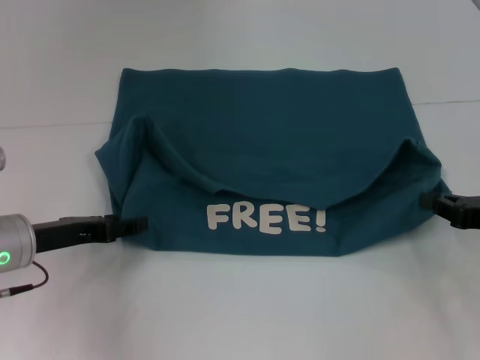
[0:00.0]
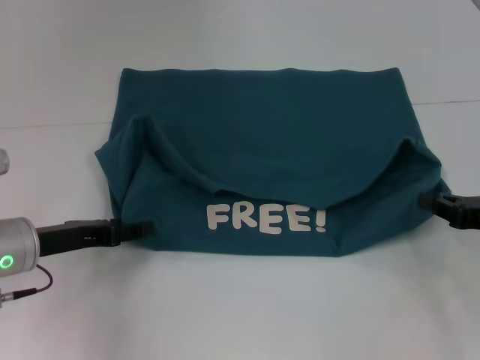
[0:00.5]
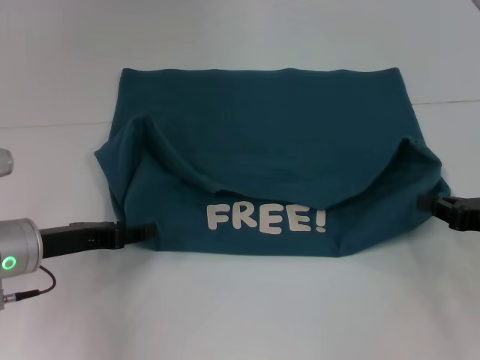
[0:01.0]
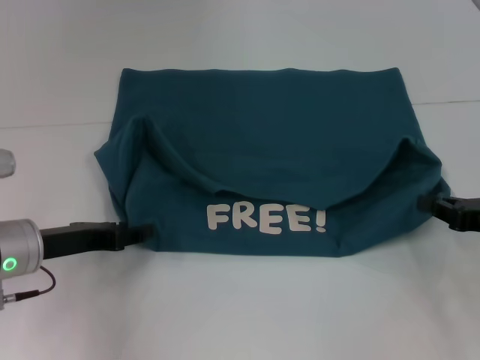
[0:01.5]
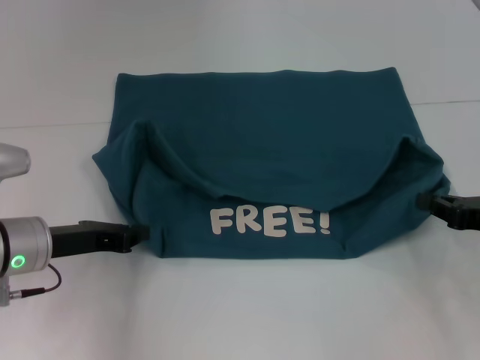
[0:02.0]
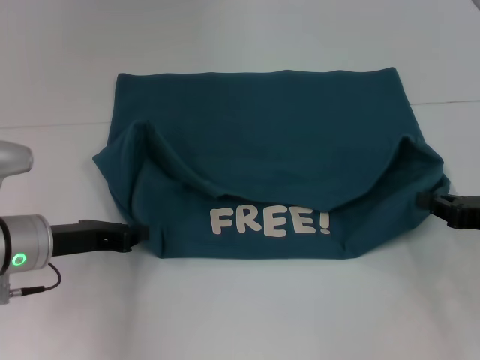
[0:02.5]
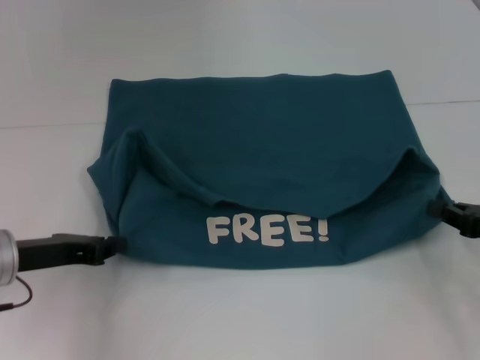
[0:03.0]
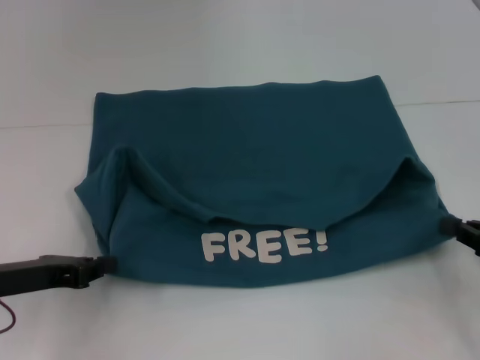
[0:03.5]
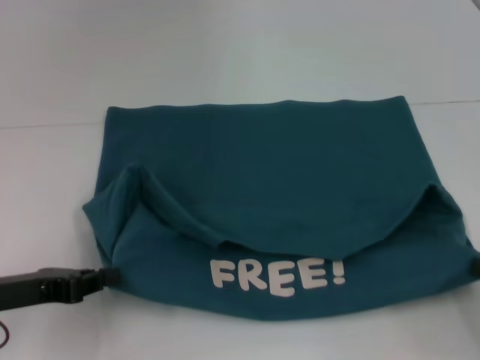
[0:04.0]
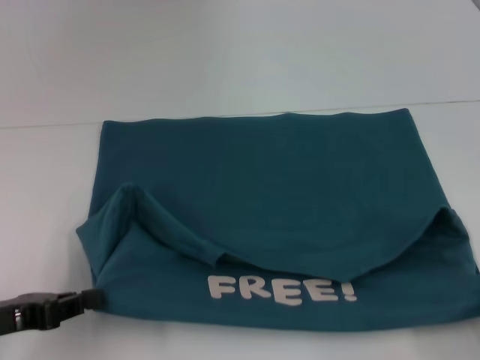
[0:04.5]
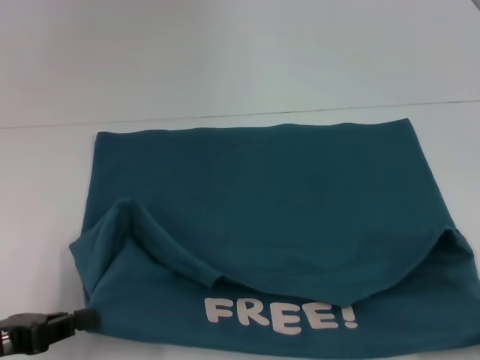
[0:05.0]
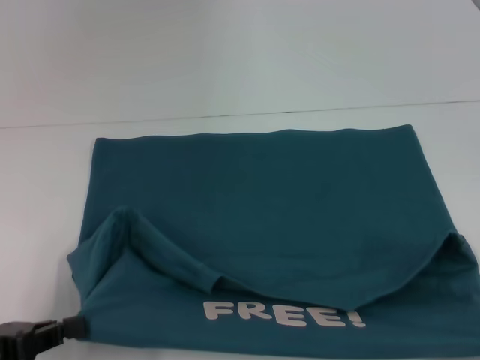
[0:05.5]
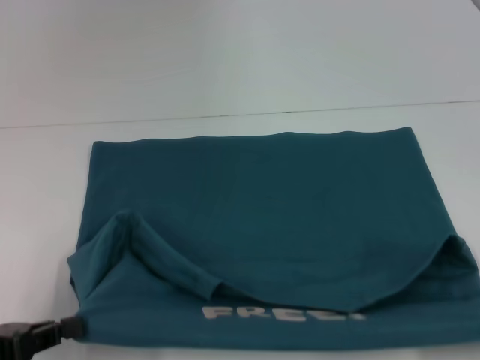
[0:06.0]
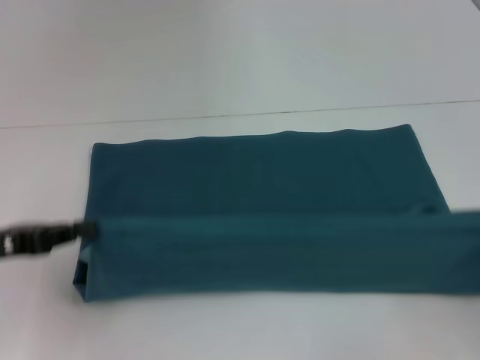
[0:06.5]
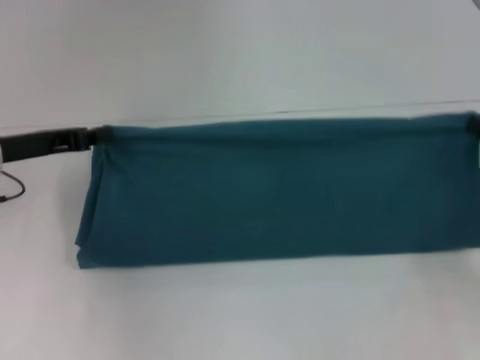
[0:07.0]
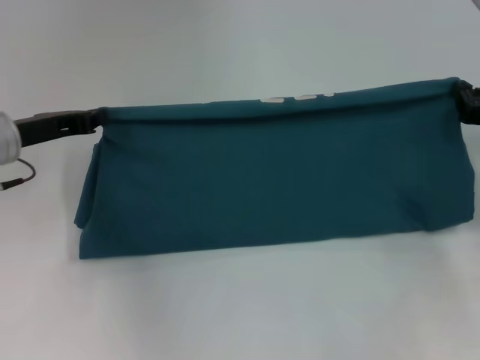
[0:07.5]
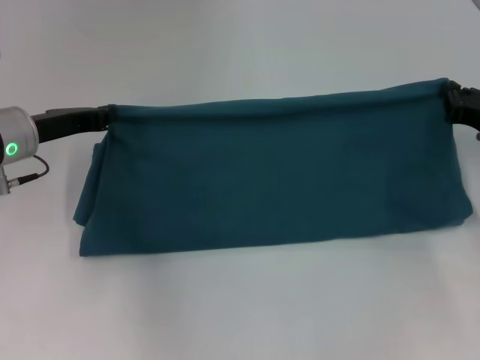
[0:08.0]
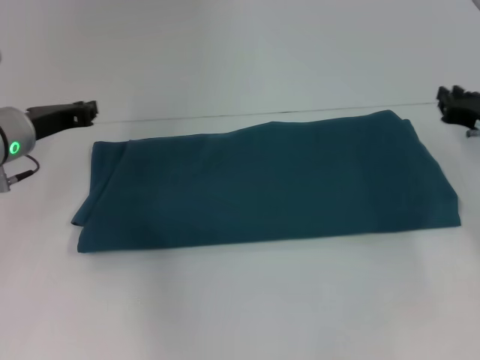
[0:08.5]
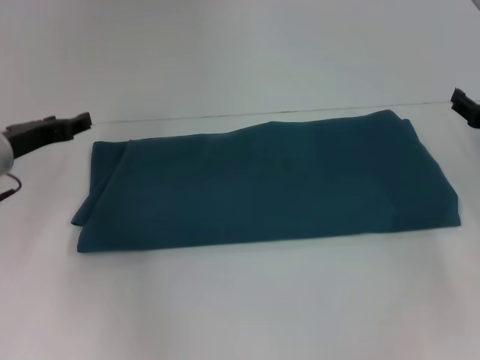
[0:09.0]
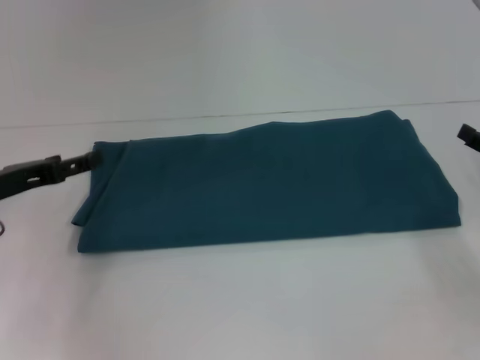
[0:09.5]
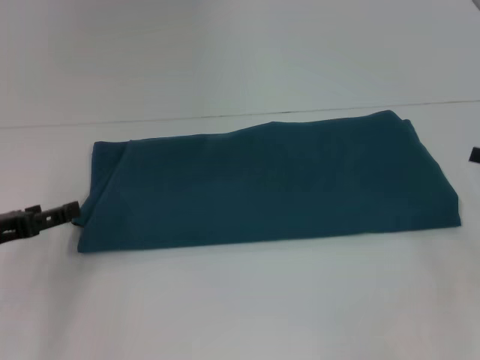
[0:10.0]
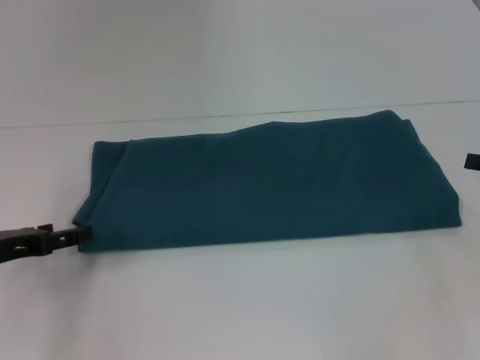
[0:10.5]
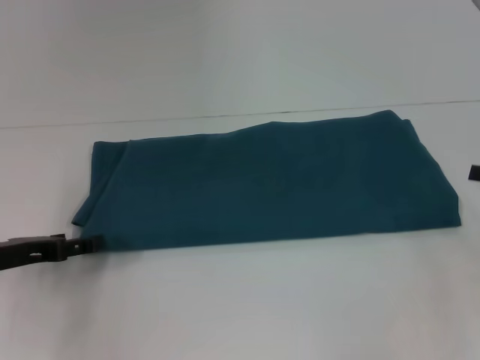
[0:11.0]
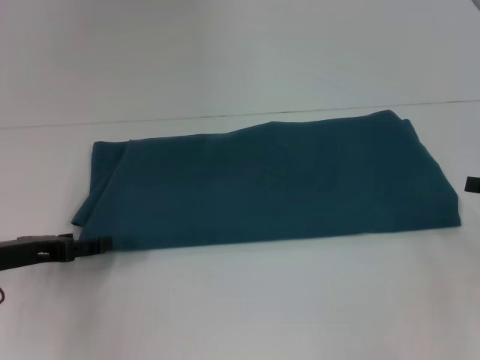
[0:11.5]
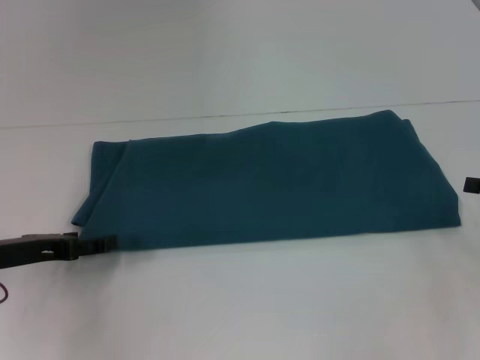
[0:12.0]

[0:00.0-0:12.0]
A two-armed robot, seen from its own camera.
Step, 0:00.0 to 0:05.5: Pull the clothes with your left hand.
Step, 0:00.0 to 0:05.5: Pull the clothes with your right hand.
Step, 0:06.0 to 0:08.0: Fold the clothes to the right.
0:00.0 to 0:02.0: The left gripper closes.
0:02.0 to 0:04.0: The right gripper moves backward, approximately 10 cm; the left gripper is displaced backward and to the left by about 10 cm.
0:04.0 to 0:06.0: Both grippers travel together backward, some 5 cm.
0:06.0 to 0:08.0: Both grippers travel together forward, approximately 25 cm.
0:08.0 to 0:10.0: The left gripper shifts approximately 15 cm backward and to the left, and opens up. Meanwhile the right gripper heads to the right and backward, covering roughly 10 cm, and opens its fingers.
0:10.0 to 0:12.0: The grippers make only small movements.

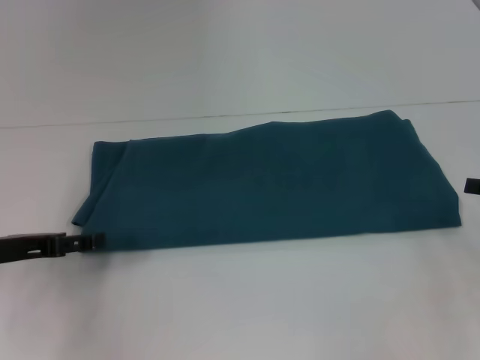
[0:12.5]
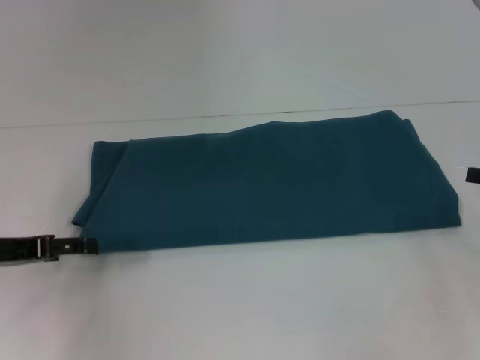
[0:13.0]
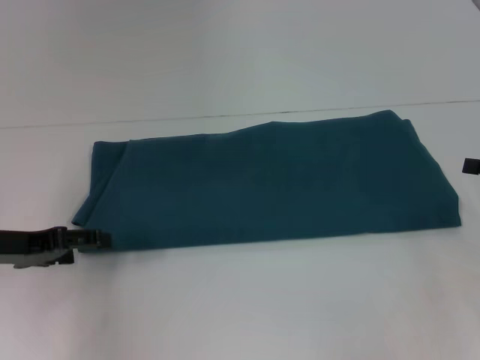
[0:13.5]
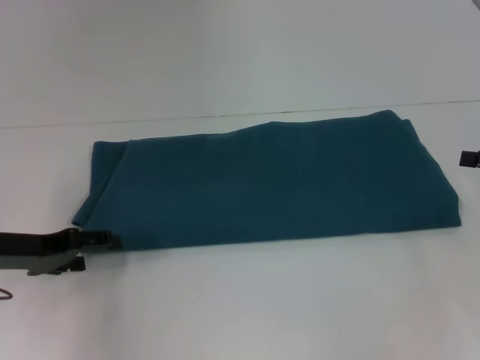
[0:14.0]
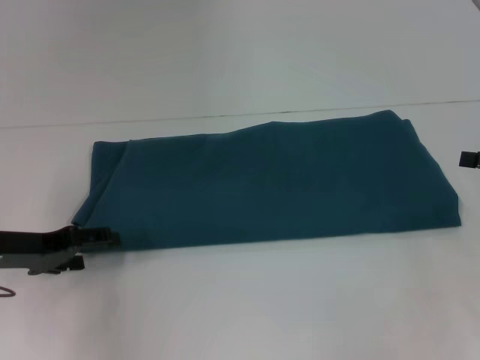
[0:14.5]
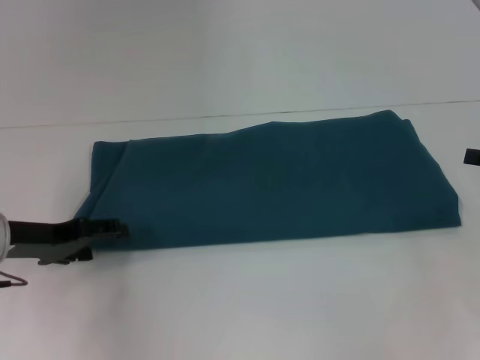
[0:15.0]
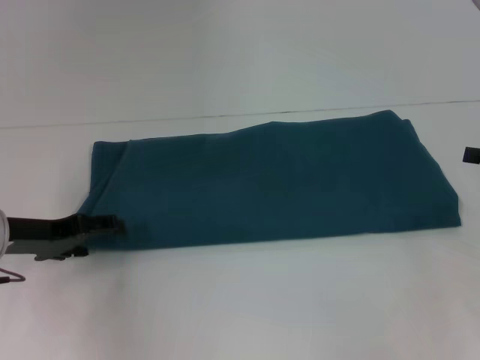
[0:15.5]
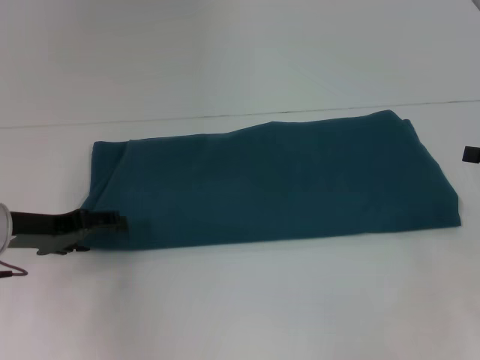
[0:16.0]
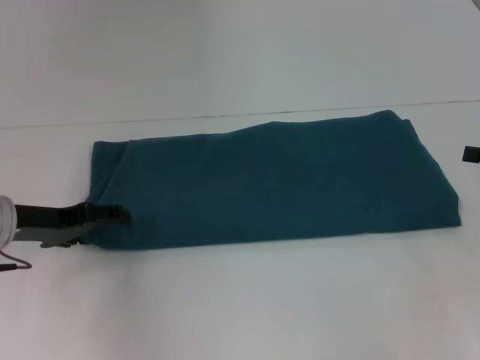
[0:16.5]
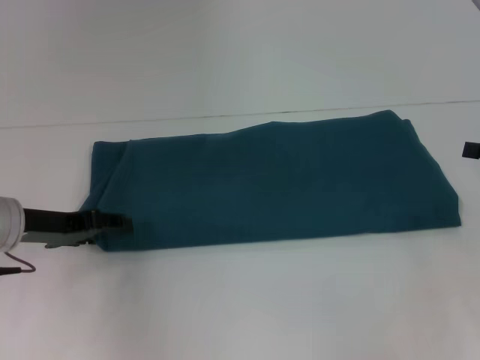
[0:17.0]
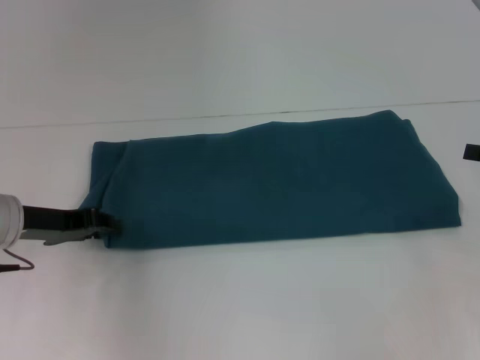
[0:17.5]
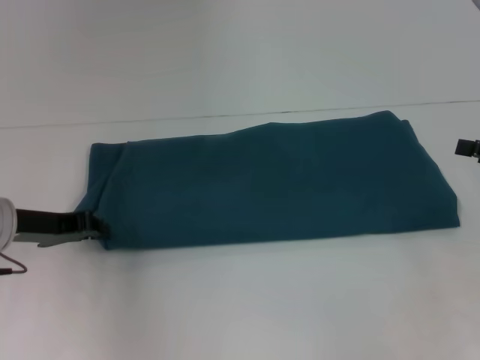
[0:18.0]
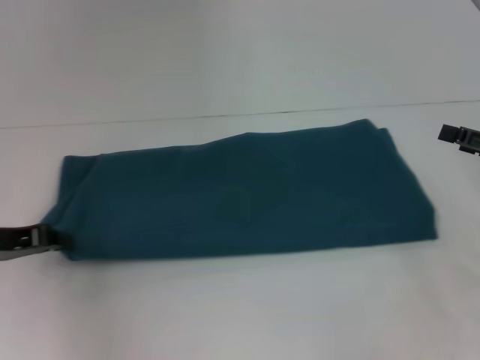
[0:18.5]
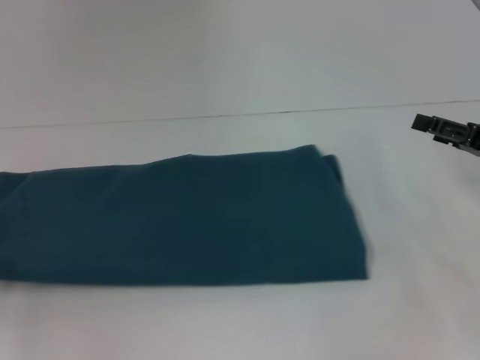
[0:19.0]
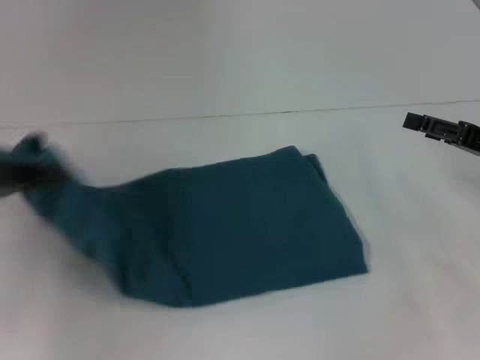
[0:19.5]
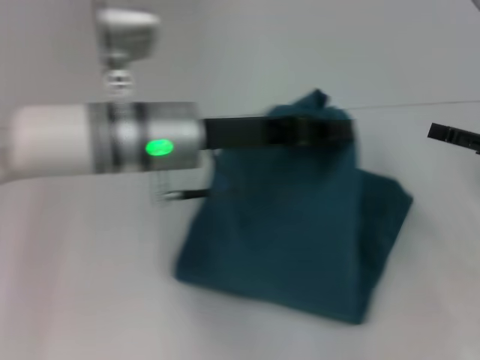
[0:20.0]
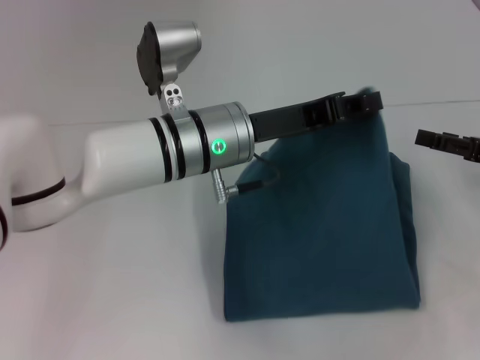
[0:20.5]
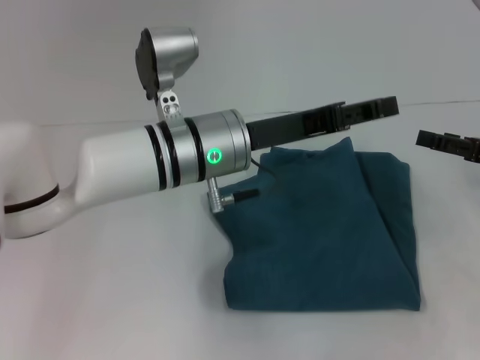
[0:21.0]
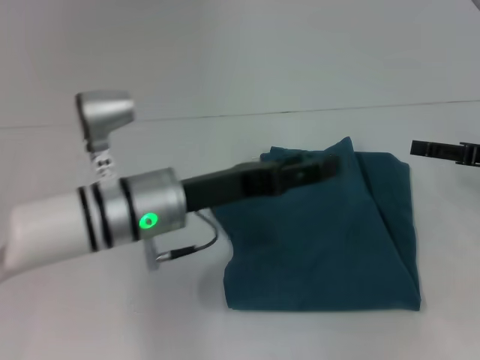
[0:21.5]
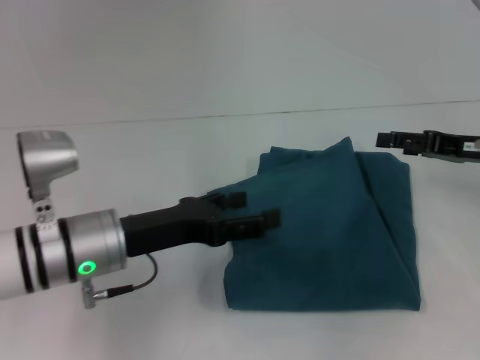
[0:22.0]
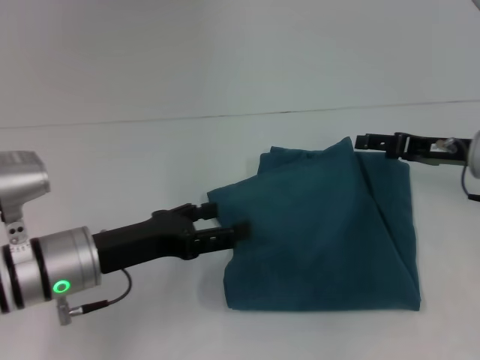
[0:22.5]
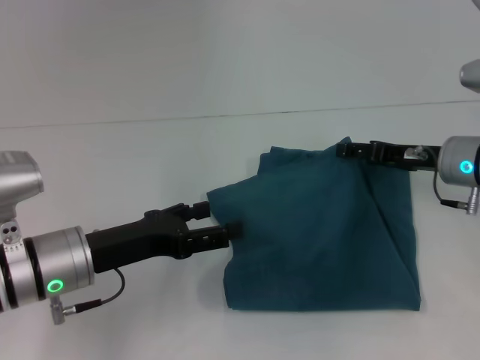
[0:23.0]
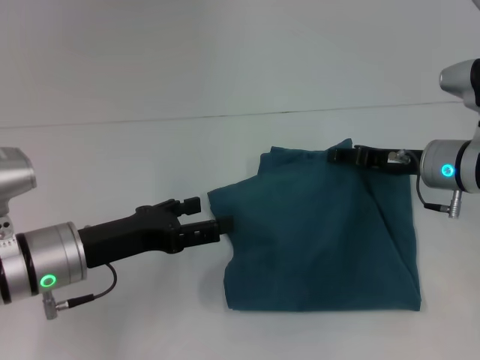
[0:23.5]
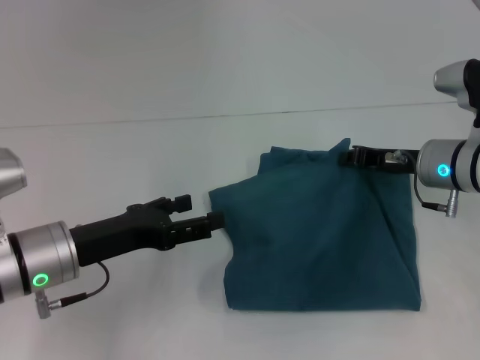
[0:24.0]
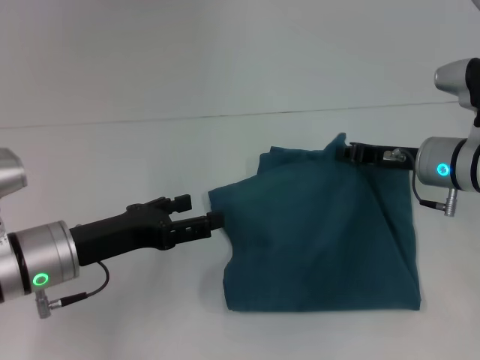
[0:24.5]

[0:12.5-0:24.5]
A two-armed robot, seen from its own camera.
Step, 0:12.5 to 0:20.5: Fold the clothes to the left.
0:14.5 to 0:16.5: The grippers stay close to where they were, moving slightly.
0:16.5 to 0:18.5: The left gripper closes up.
0:18.5 to 0:20.5: The left gripper goes approximately 25 cm to the right.
0:20.5 to 0:22.5: The left gripper shifts roughly 20 cm to the left, backward and downward, and opens. Meanwhile the right gripper goes about 10 cm to the left and forward.
0:22.5 to 0:24.5: The right gripper goes roughly 5 cm to the left, and closes its fingers.

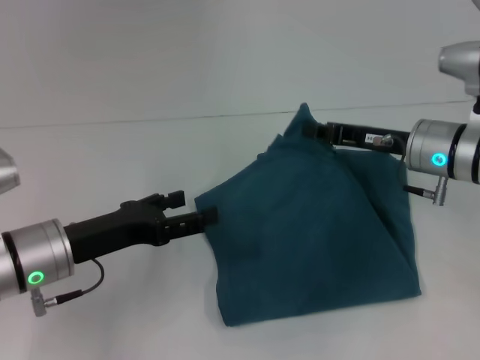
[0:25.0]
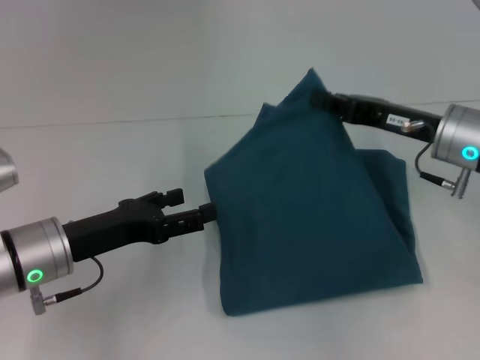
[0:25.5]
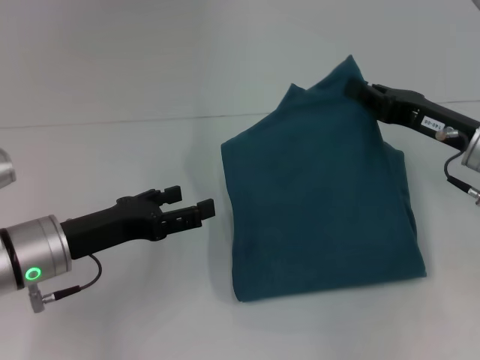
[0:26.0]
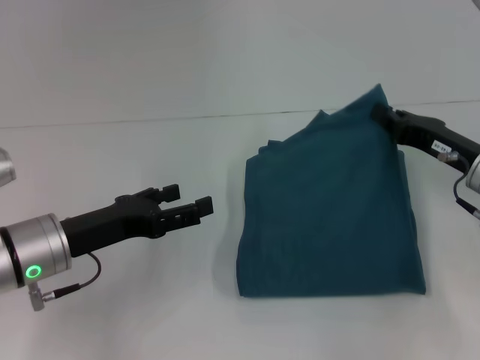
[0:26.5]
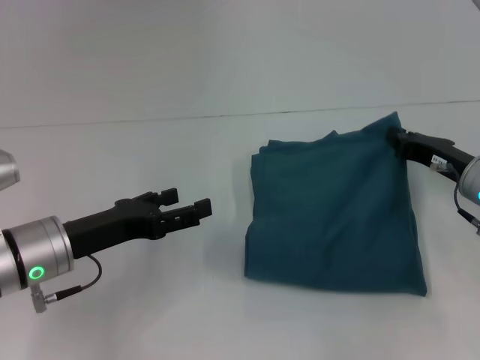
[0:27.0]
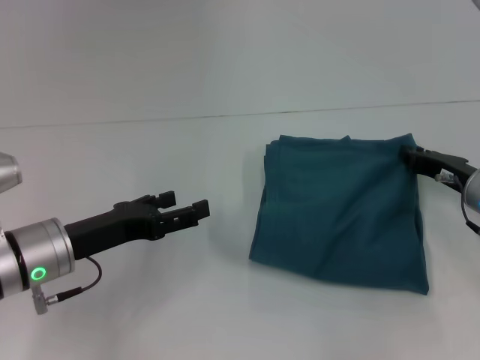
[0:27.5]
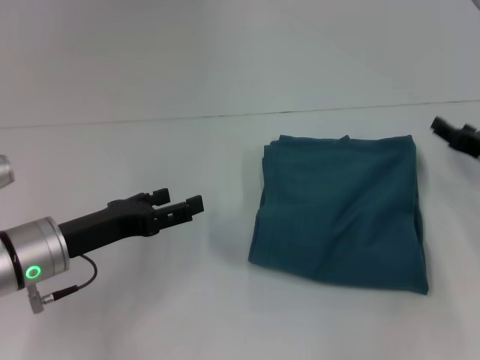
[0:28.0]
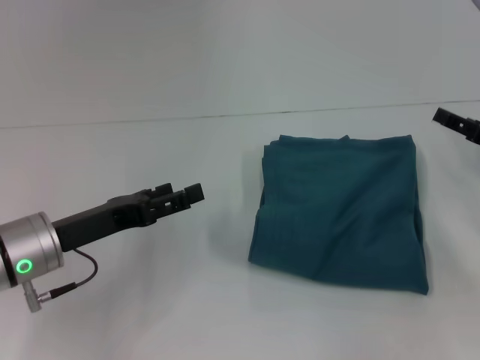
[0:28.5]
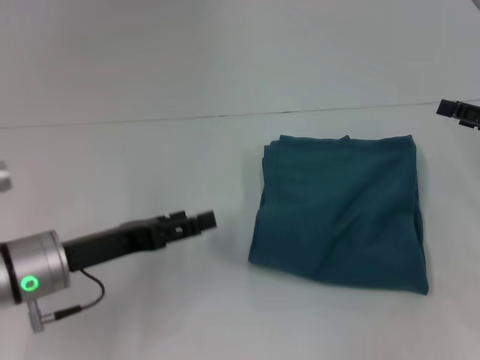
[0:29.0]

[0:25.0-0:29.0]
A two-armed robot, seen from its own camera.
0:25.0 to 0:27.0: The right gripper travels to the right by some 5 cm.
0:27.0 to 0:29.0: The right gripper heads to the right and upward, covering some 10 cm, and opens.
